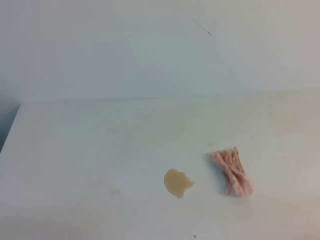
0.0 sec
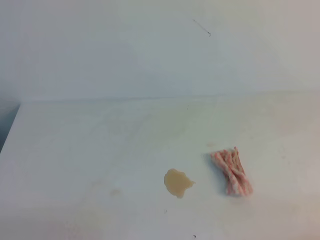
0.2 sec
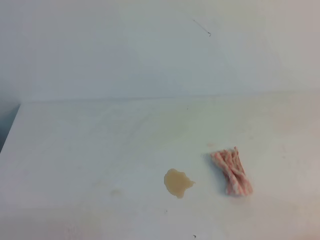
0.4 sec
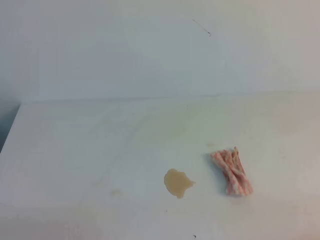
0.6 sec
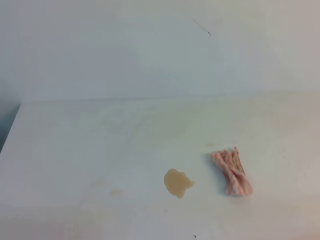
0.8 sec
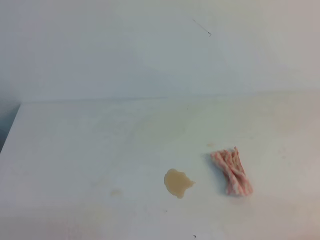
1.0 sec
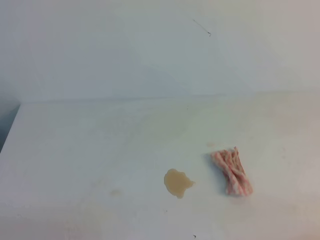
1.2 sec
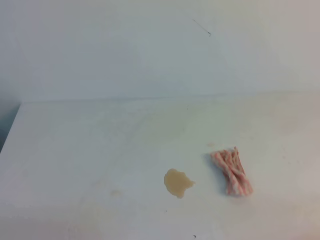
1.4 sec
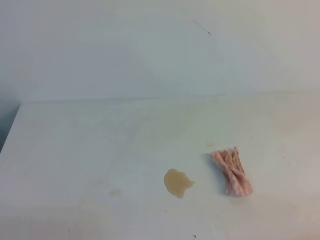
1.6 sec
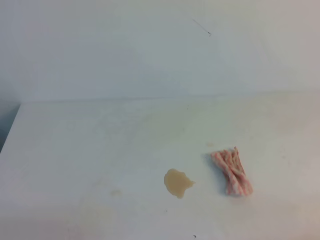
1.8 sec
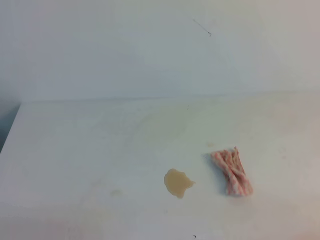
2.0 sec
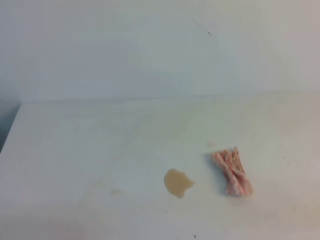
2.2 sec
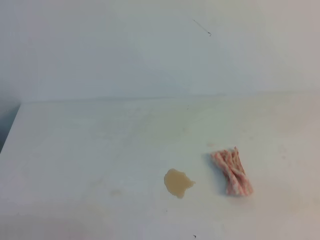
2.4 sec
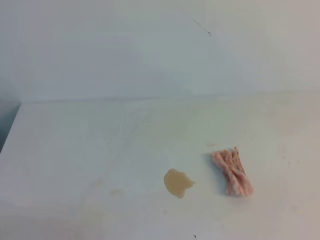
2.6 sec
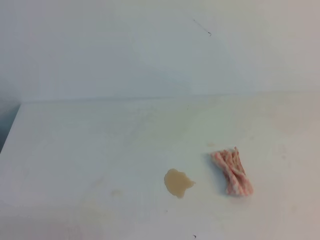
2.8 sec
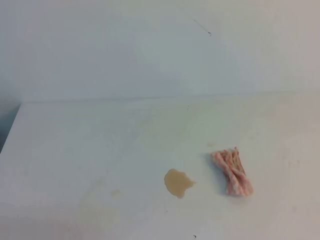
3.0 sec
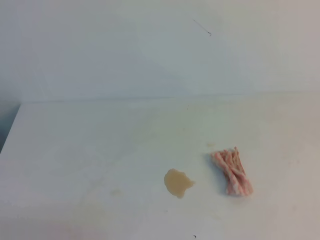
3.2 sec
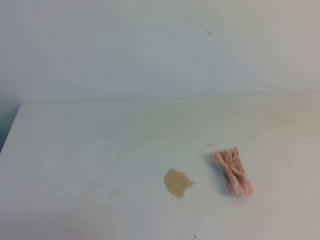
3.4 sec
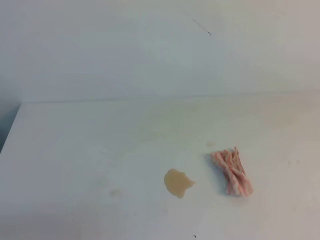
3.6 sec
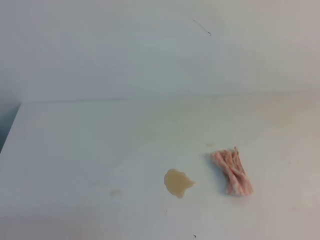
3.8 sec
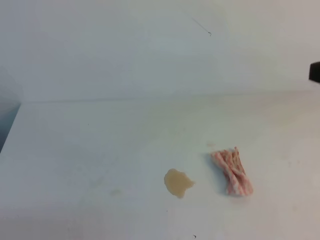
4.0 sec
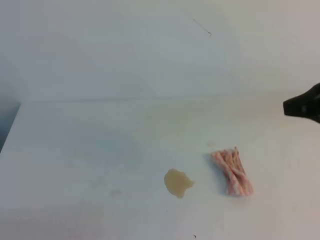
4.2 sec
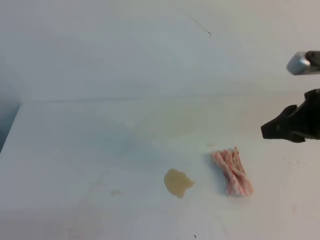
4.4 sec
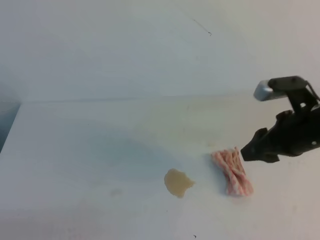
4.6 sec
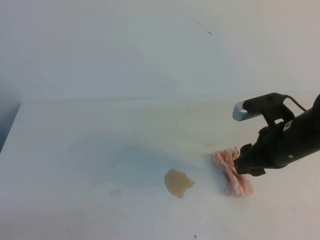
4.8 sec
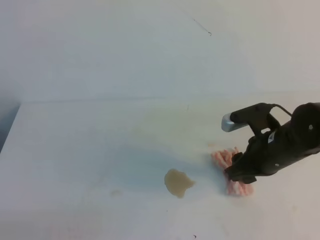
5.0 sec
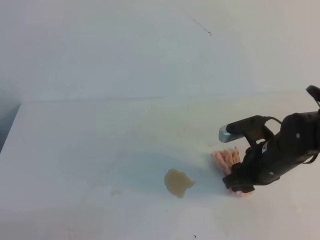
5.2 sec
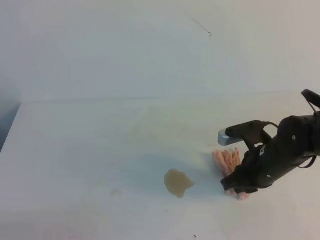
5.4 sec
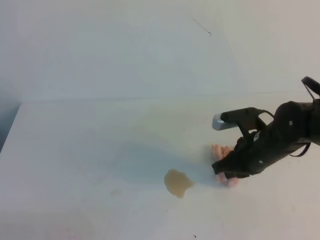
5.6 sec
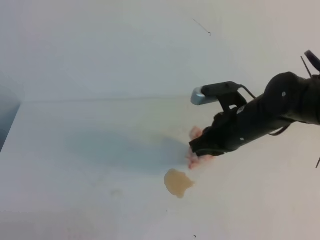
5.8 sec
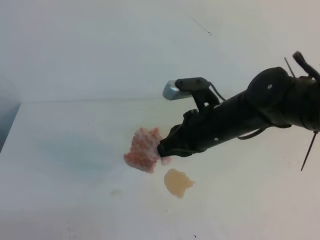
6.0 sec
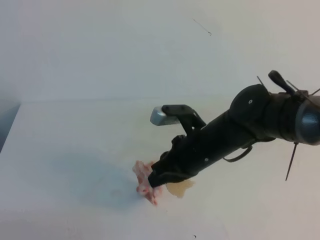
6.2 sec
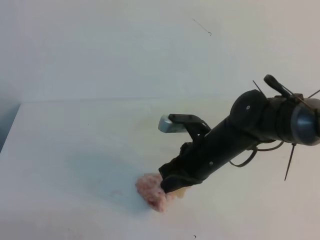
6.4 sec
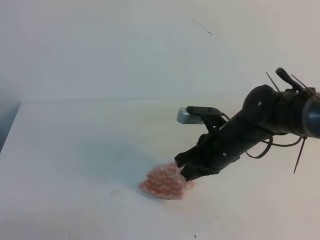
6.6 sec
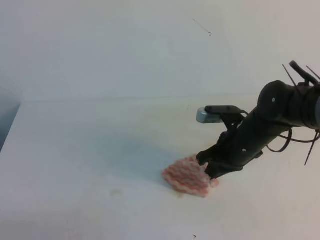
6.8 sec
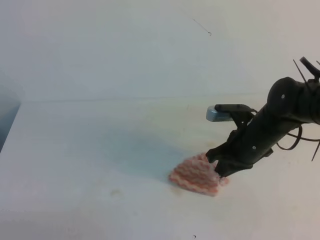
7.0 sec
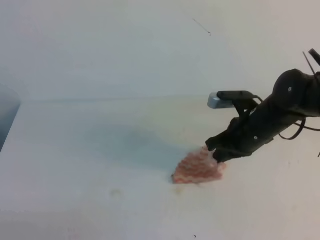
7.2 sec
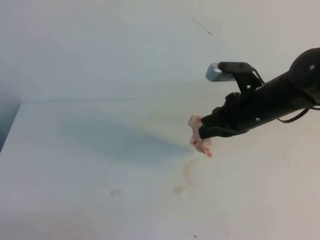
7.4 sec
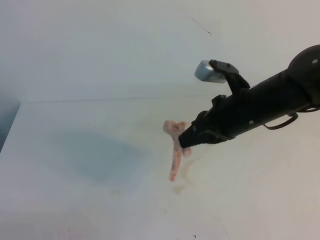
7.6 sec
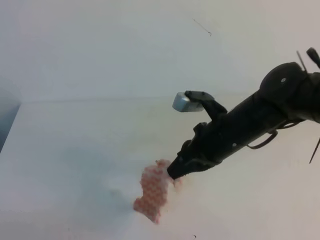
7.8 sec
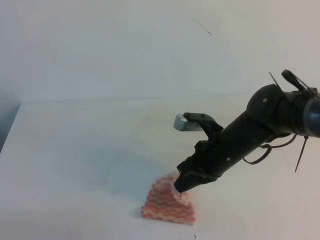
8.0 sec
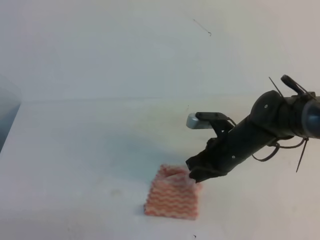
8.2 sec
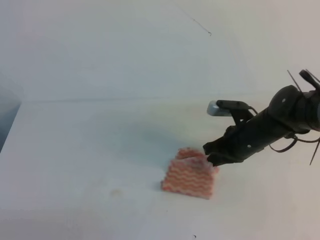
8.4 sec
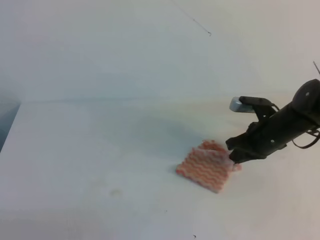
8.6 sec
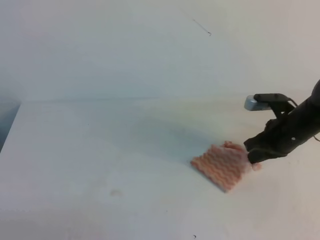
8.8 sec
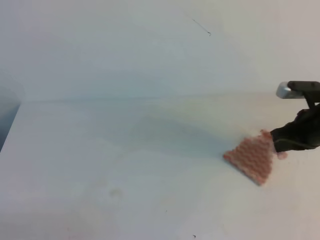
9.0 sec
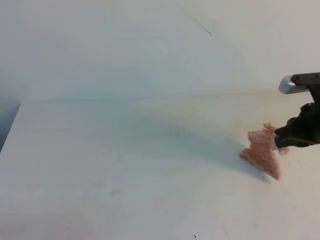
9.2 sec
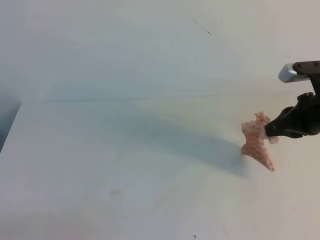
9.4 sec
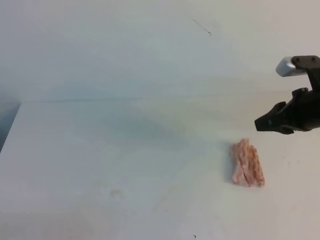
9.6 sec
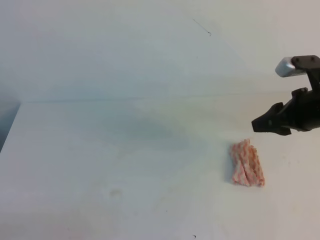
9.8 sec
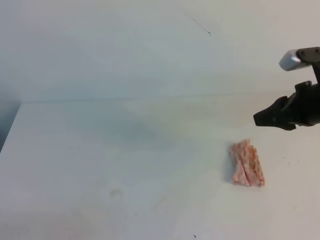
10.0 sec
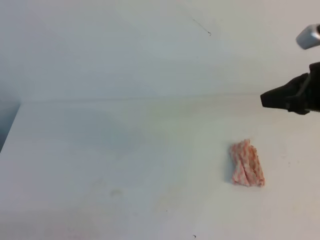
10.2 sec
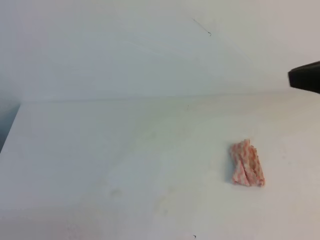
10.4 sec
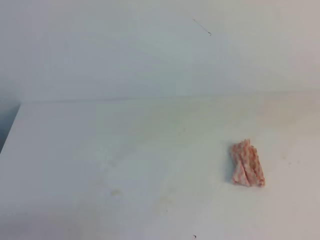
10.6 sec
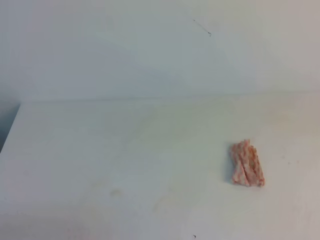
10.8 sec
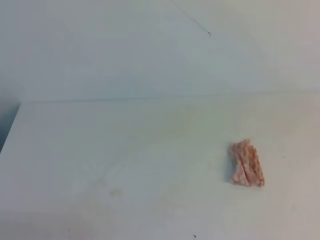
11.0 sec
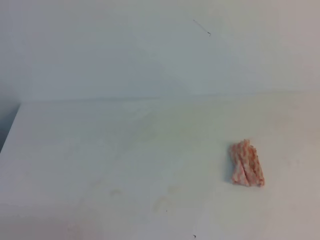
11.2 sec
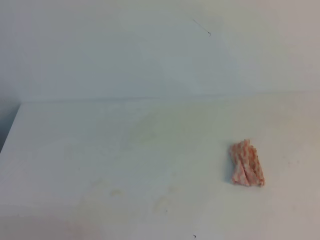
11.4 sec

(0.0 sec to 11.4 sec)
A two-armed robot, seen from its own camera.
0.0 sec - 1.4 sec: The two grippers keep their place.
2.8 sec - 4.2 sec: The right gripper moves forward, about 25 cm.
4.2 sec - 5.6 sec: The right gripper is displaced downward and to the left by some 20 cm, and opens, then closes again.
5.6 sec - 7.2 sec: The right gripper reaches roughly 10 cm to the left, then returns.
7.2 sec - 8.6 sec: The right gripper moves roughly 5 cm.
8.6 sec - 10.0 sec: The right gripper heads upward, to the right and backward, covering roughly 15 cm, and opens up.
10.0 sec - 11.4 sec: The right gripper goes approximately 35 cm backward and upward, and closes.

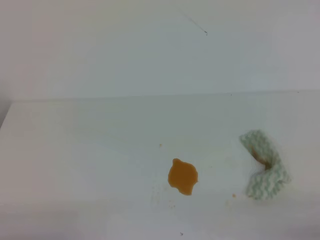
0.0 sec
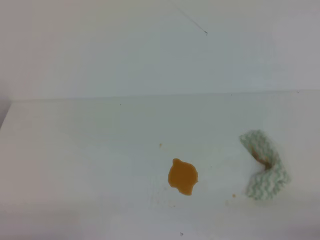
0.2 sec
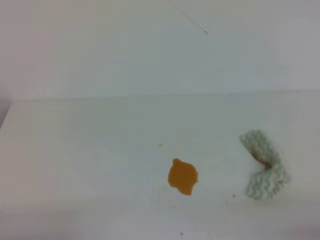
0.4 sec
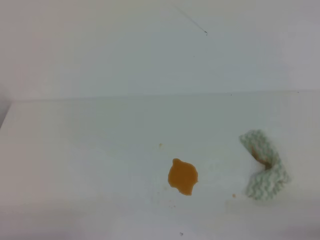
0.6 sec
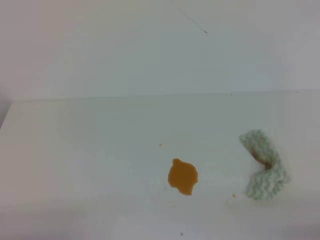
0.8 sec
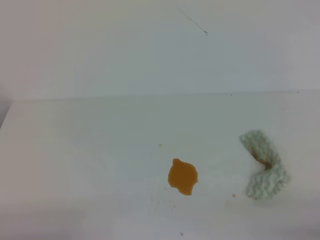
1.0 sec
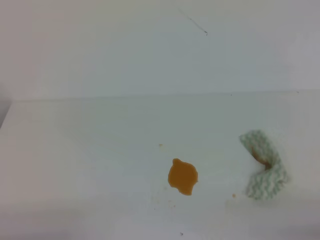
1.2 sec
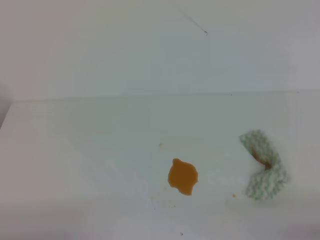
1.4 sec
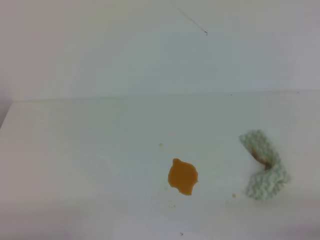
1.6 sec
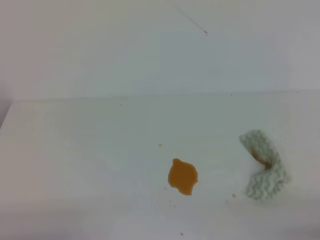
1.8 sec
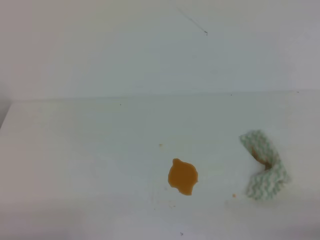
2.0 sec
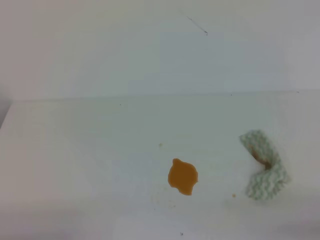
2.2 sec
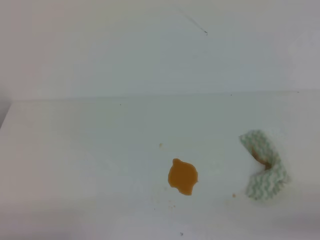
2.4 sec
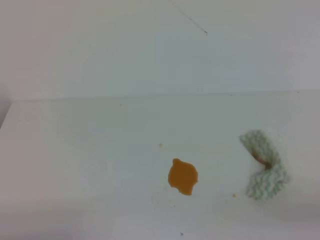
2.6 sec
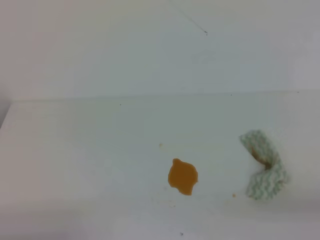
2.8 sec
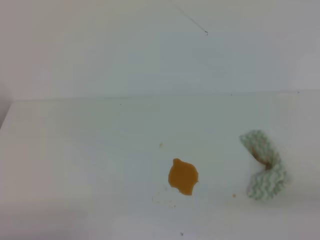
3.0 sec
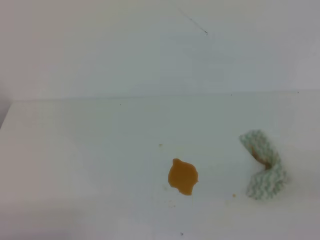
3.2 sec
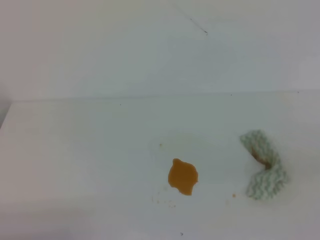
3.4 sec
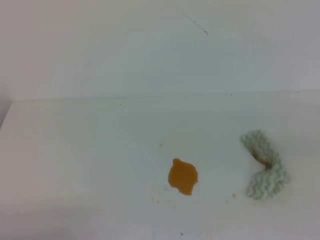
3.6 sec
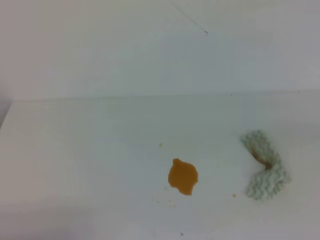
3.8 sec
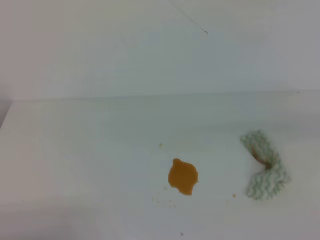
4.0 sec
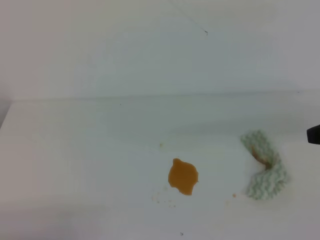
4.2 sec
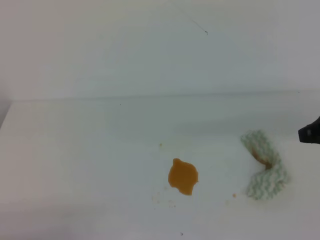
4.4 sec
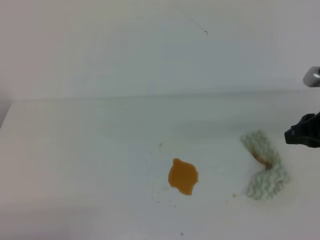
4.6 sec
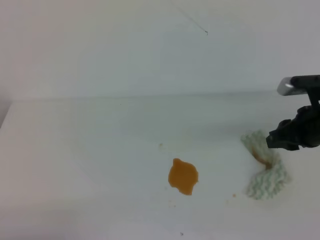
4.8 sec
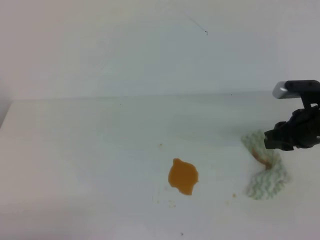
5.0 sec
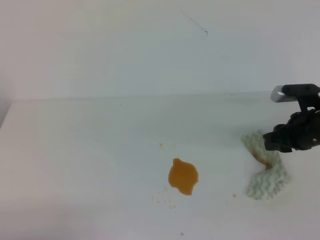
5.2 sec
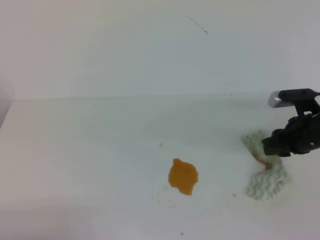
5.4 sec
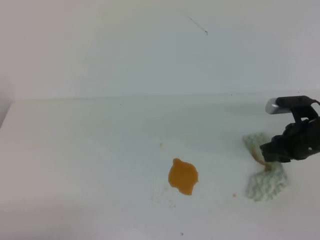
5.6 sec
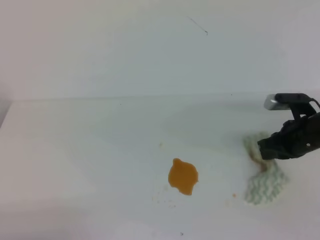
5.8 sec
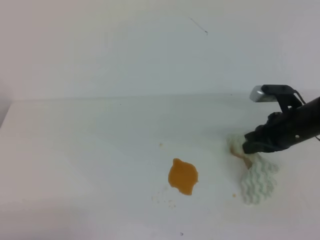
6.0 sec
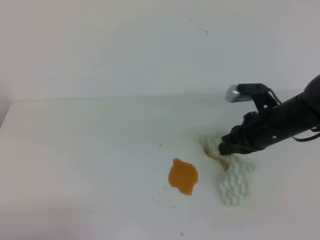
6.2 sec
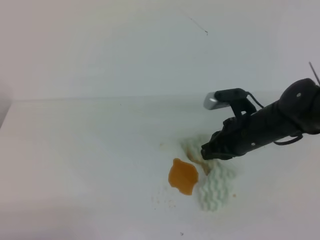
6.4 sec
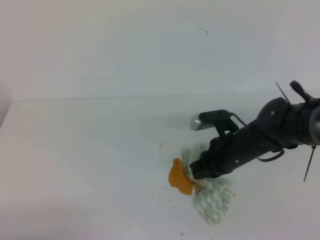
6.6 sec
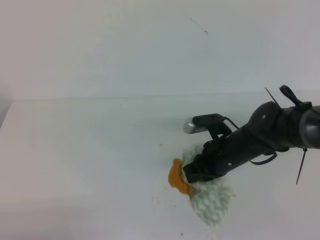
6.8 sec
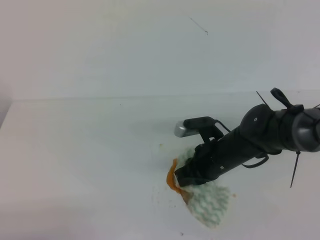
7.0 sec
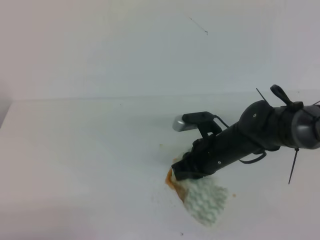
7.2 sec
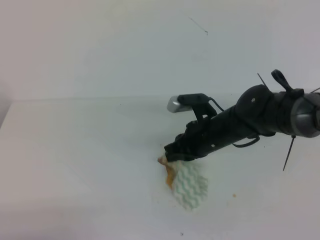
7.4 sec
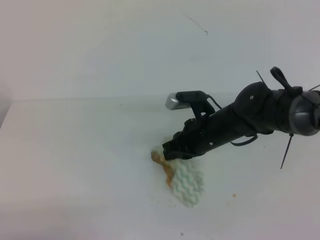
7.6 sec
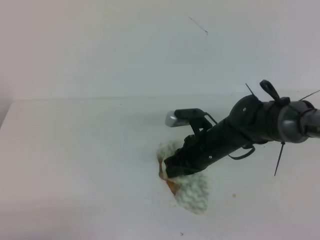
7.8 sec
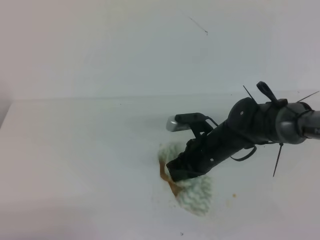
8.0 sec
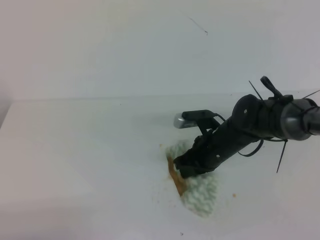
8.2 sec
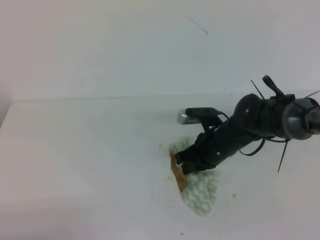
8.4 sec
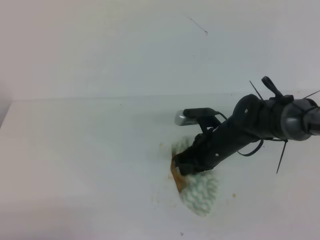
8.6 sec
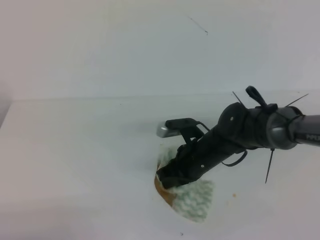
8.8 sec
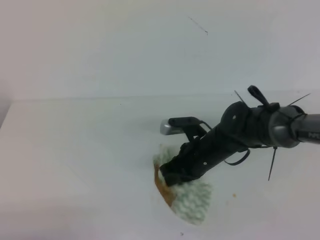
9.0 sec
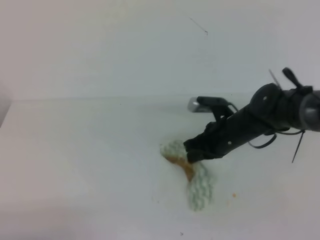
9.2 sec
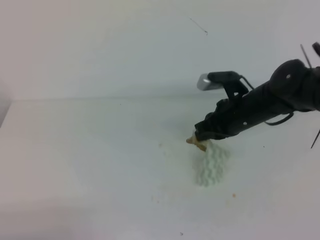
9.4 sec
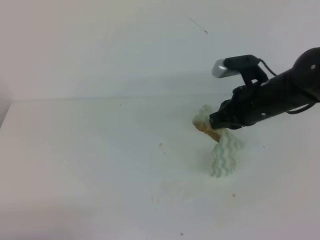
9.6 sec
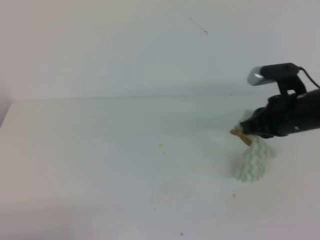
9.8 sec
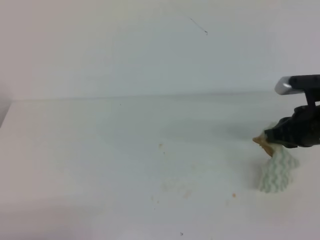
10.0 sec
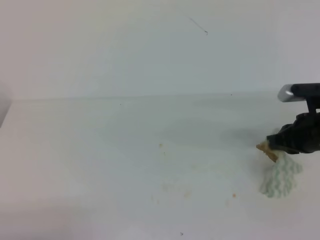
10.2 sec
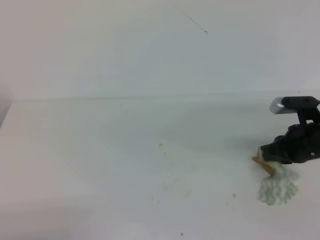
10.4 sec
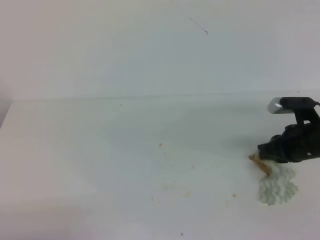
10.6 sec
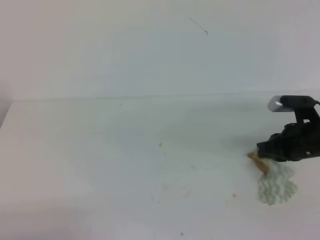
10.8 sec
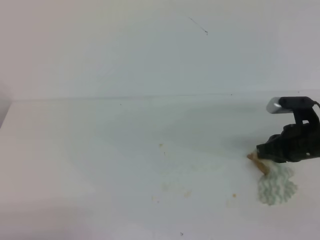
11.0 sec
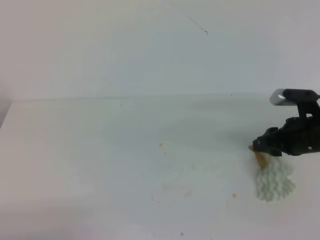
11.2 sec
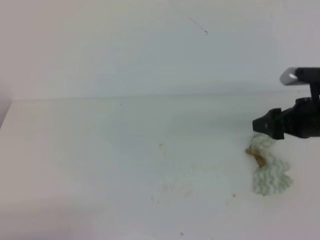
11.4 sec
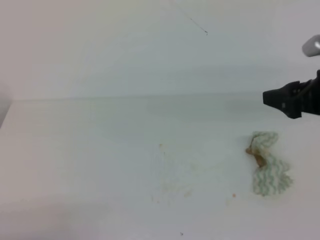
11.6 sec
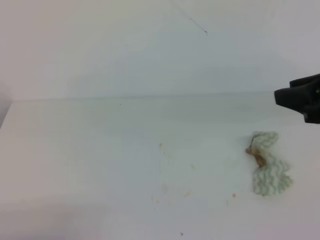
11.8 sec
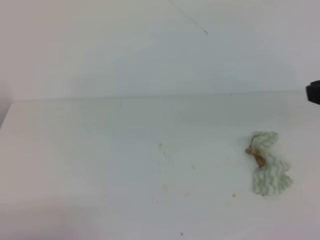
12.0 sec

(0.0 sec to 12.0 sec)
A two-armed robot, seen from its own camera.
0.0 sec - 1.6 sec: Both grippers stay about where they are.
3.0 sec - 4.4 sec: The right gripper is displaced forward by some 20 cm.
4.4 sec - 6.0 sec: The right gripper heads downward, forward and to the left, covering some 15 cm, and opens and closes again.
6.0 sec - 7.6 sec: The right gripper travels to the left by roughly 15 cm.
7.6 sec - 9.0 sec: The grippers move only a little.
9.0 sec - 10.4 sec: The right gripper travels to the right by some 20 cm.
10.4 sec - 12.0 sec: The right gripper goes about 25 cm upward and backward, and opens, then closes once more.
